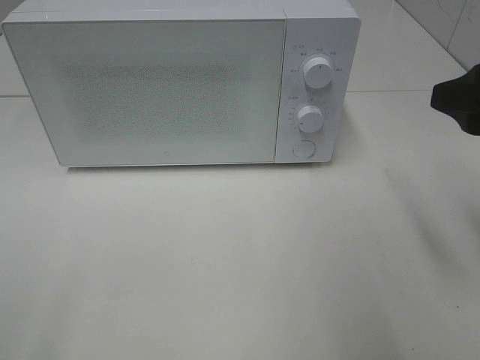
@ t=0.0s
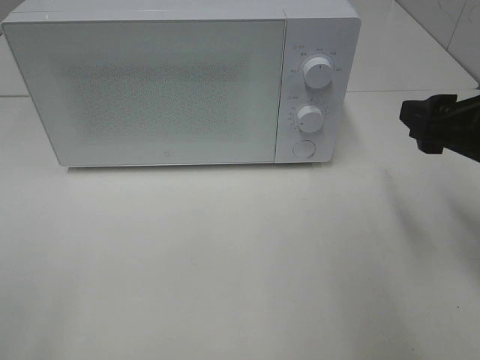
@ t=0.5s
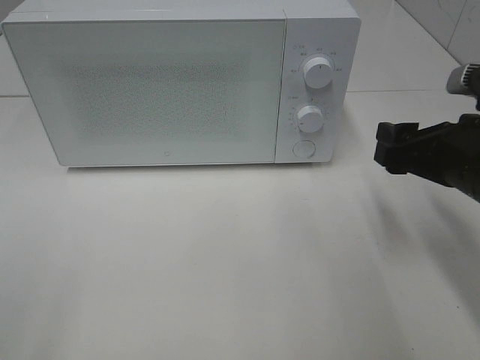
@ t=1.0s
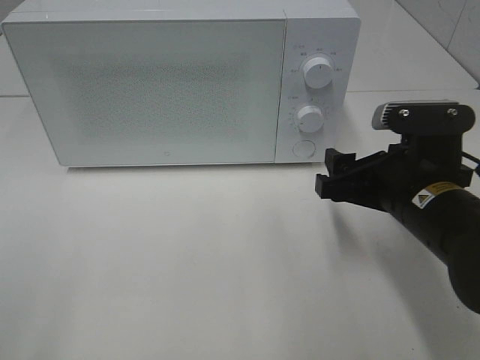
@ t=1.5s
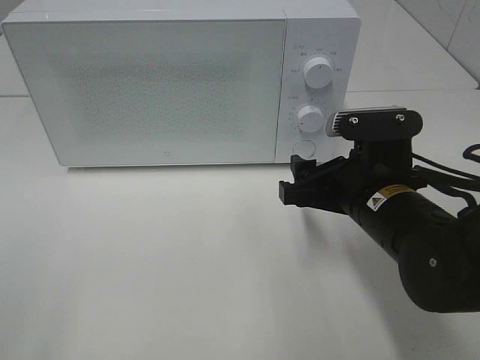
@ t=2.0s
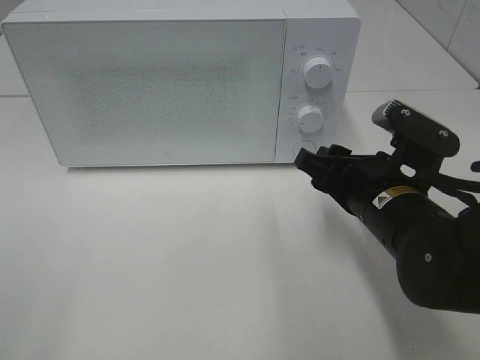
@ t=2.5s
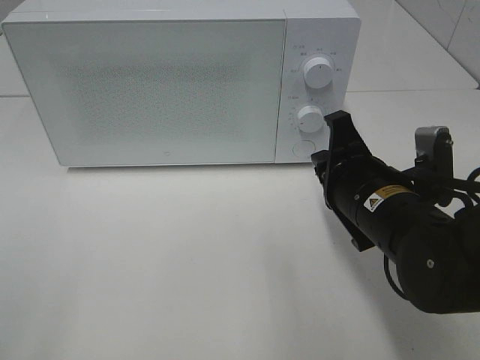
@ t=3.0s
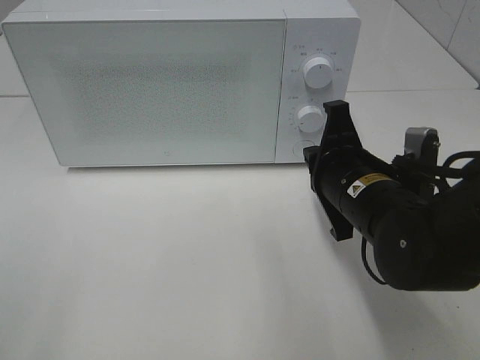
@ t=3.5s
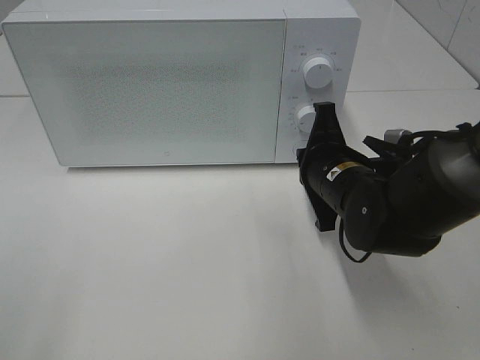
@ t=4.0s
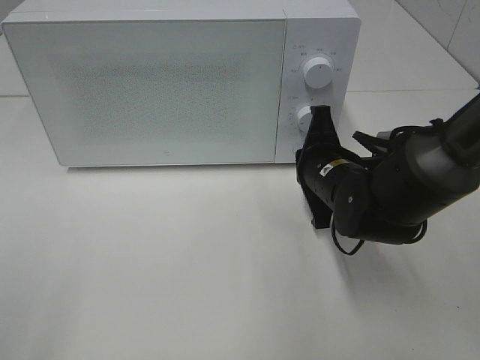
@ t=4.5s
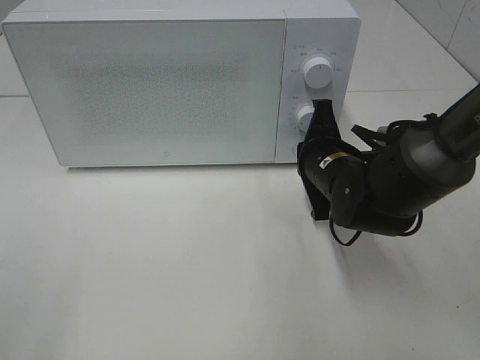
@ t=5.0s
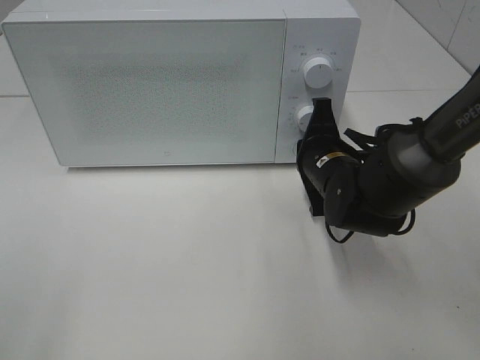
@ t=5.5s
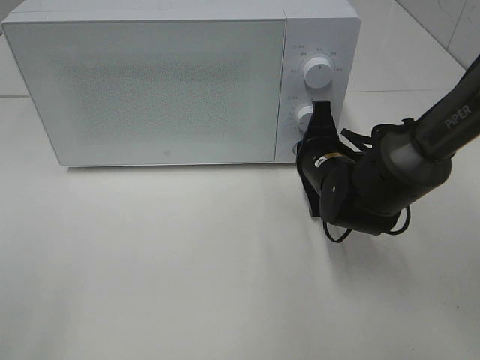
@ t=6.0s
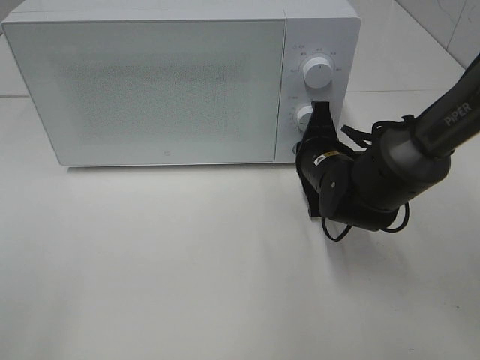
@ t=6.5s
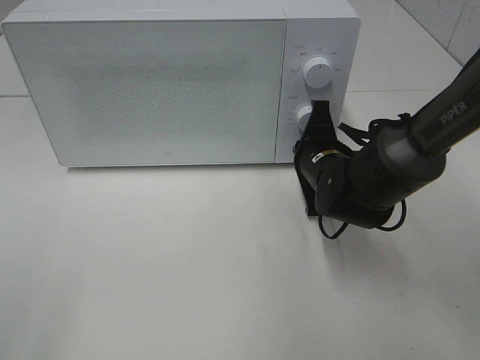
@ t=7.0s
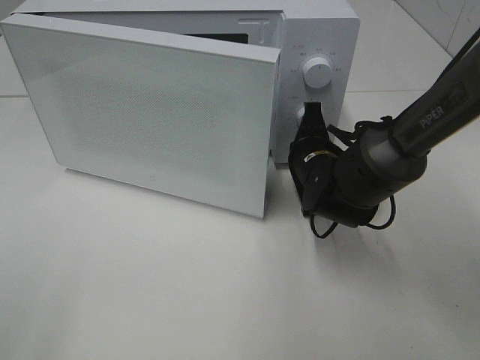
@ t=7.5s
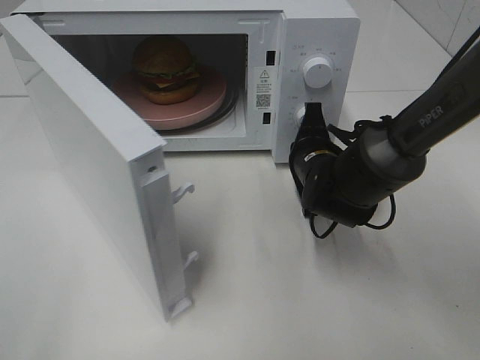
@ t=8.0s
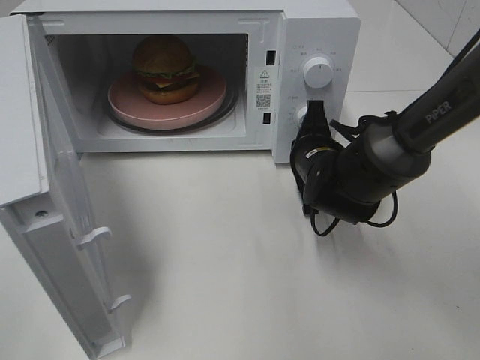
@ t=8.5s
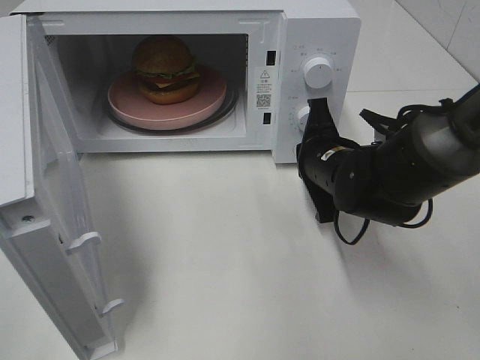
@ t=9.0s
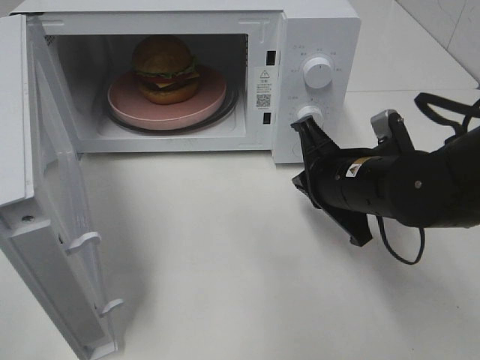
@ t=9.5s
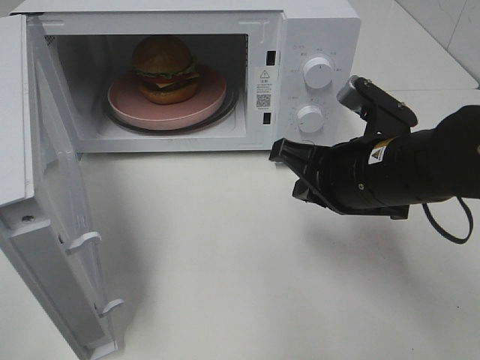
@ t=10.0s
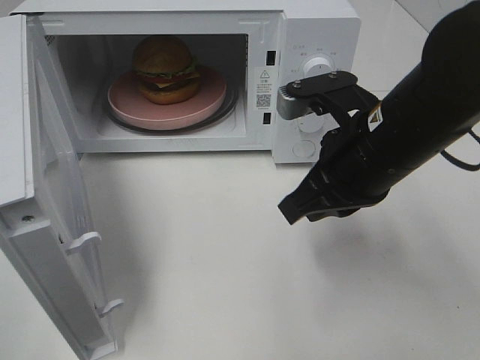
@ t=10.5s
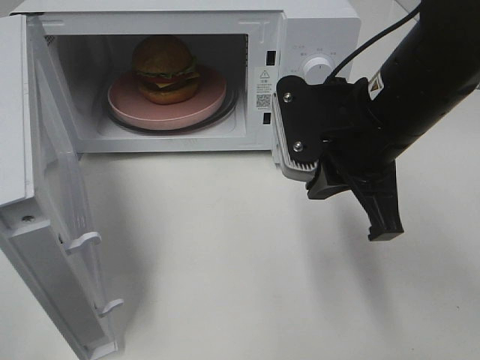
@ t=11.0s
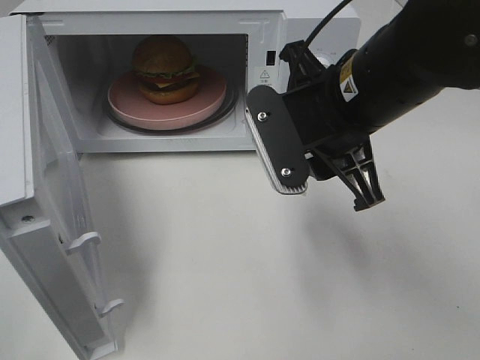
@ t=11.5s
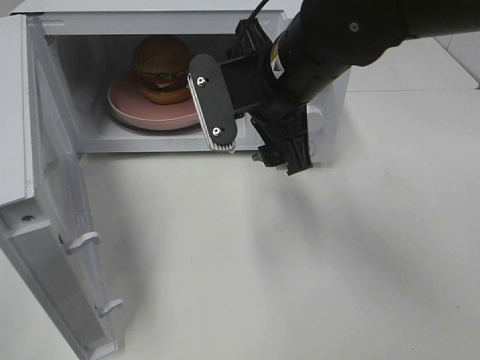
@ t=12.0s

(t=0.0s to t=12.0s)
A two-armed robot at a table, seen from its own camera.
Task of the whole recording: Heat the burger.
Step, t=0.0s - t=8.5s: Right hand: press the switch.
t=0.0s - t=2.0s: The right gripper travels downward and to the left by roughly 20 cm.
t=2.0s - t=4.0s: The right gripper goes roughly 5 cm forward, and closes its fingers.
t=4.0s - t=6.0s: The right gripper ends up about 5 cm from where it was.
t=8.0s - t=10.0s: The right gripper is displaced backward and upward by roughly 15 cm.
t=10.0s - t=12.0s: The right gripper shifts some 10 cm to the left, upward and forward, and opens its fingers.

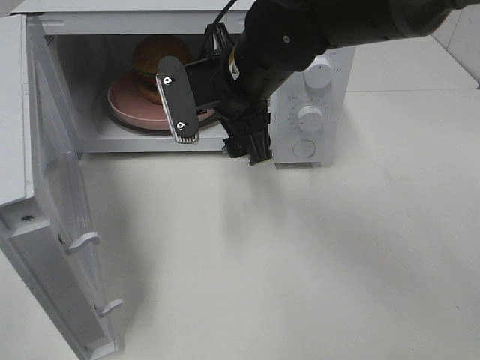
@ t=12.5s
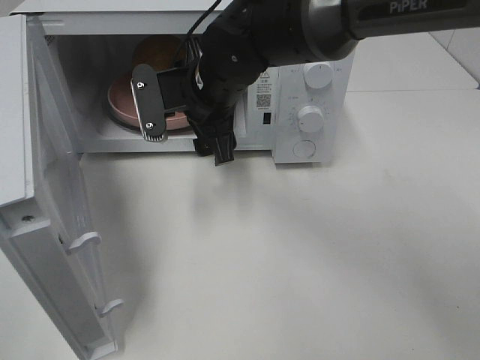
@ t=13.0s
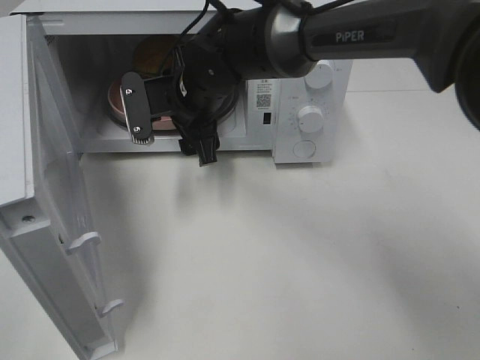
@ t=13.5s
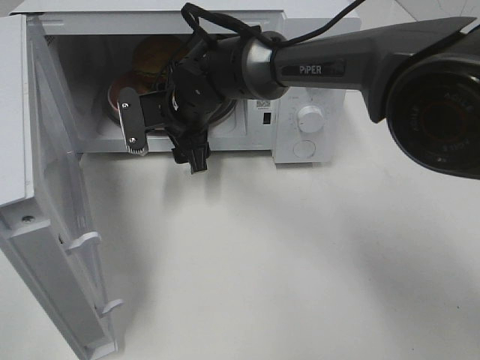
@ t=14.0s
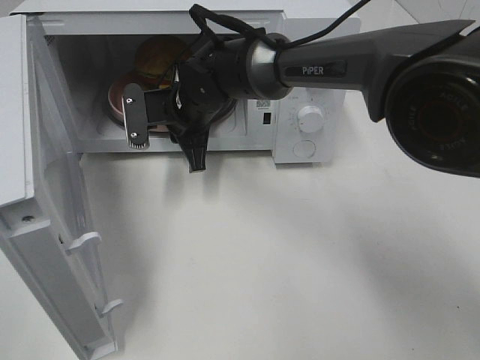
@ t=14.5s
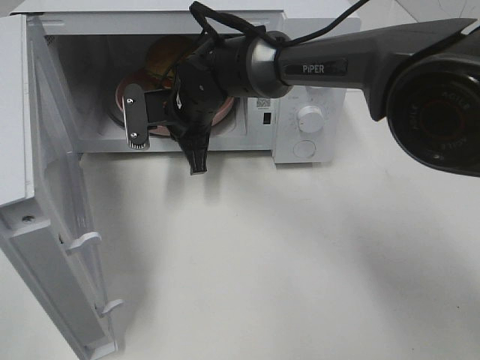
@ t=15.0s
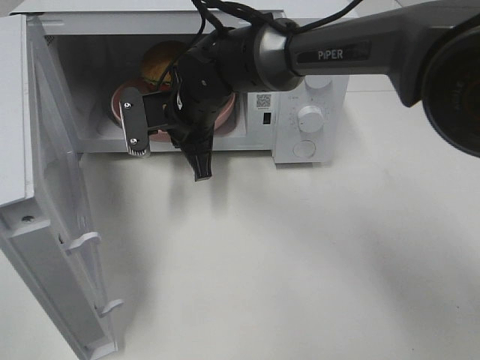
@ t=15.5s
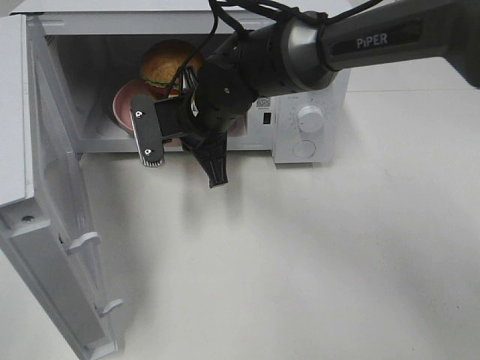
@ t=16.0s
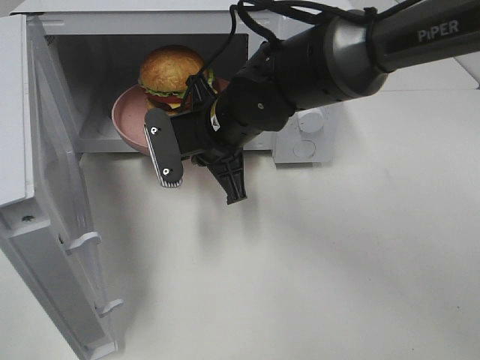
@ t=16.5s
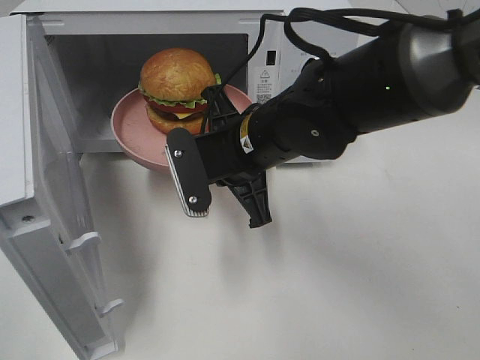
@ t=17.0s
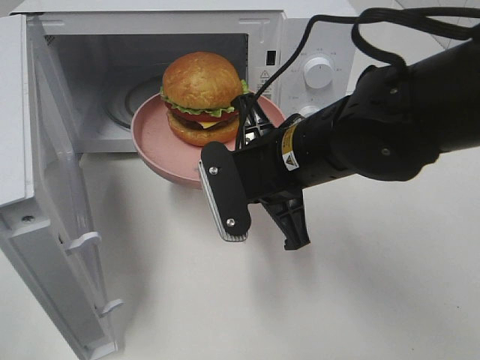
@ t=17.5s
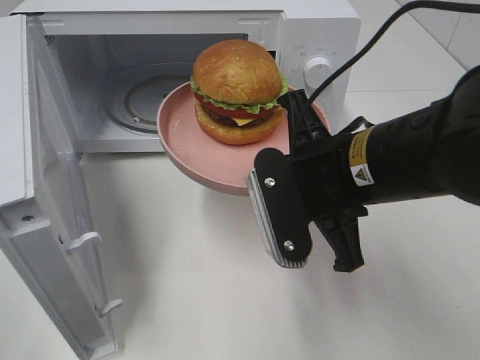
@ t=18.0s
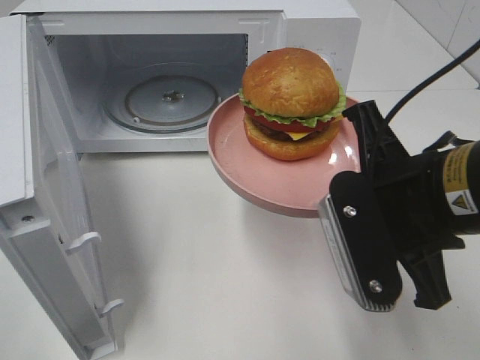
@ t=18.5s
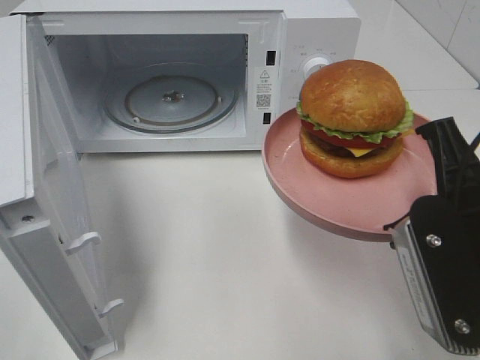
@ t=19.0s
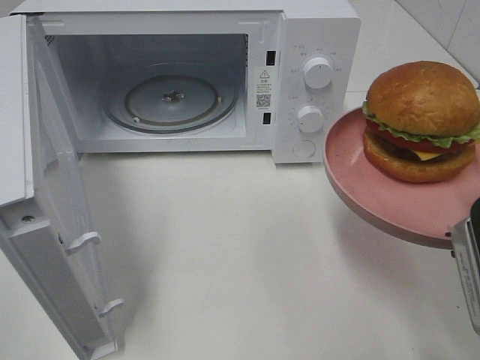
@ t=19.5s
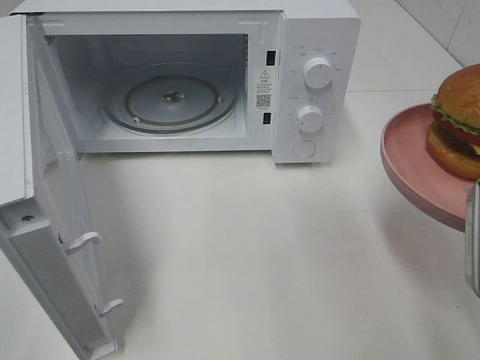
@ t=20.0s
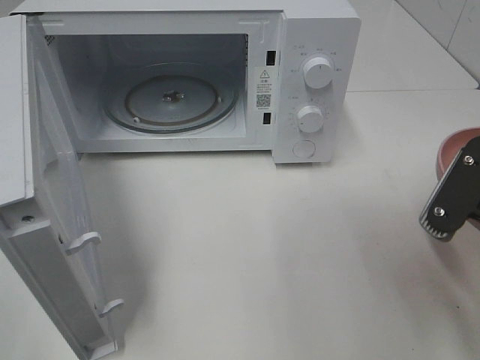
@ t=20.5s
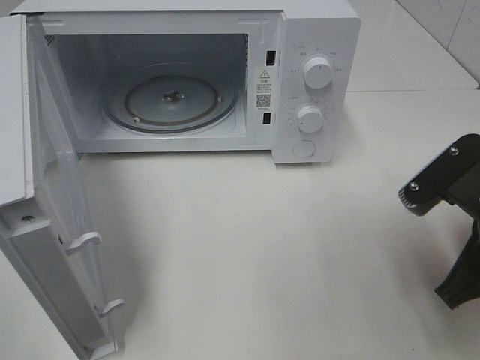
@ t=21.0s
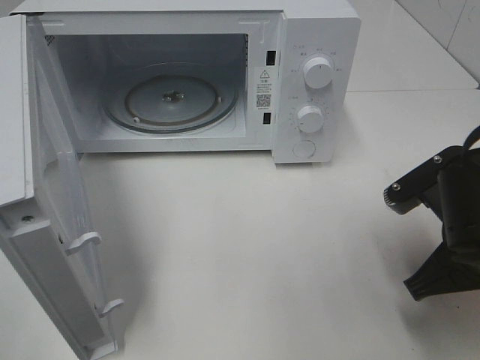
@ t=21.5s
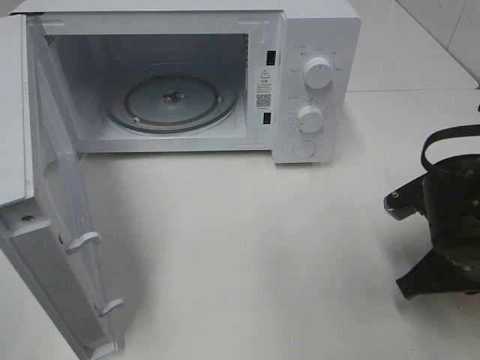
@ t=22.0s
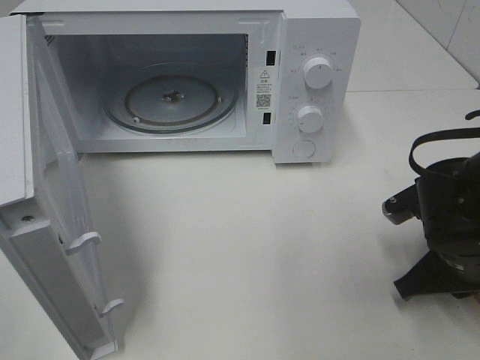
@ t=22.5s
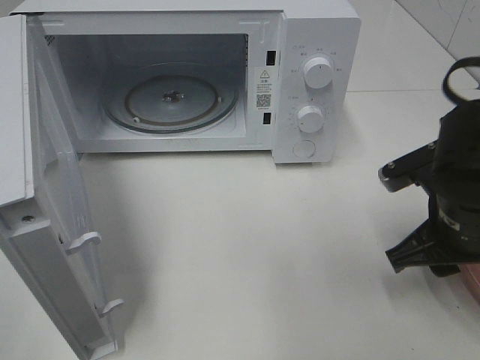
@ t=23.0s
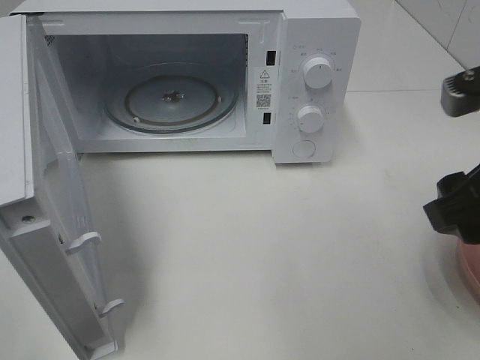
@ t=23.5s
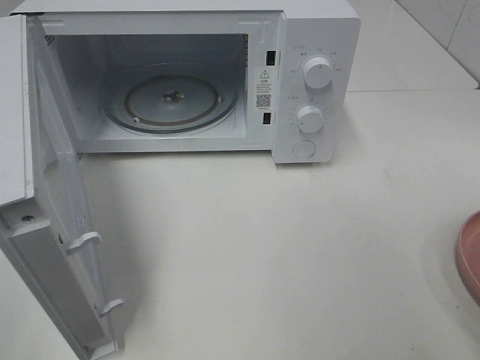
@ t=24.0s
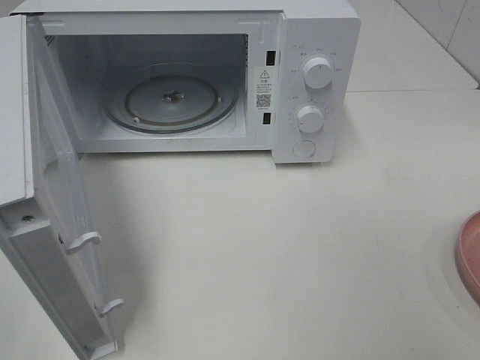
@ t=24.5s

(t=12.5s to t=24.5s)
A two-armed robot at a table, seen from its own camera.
Task of the whole recording: Heat the burger.
Step, t=12.5s - t=14.5s: Right hand: grab the plate with the hamburger.
Step, t=15.0s - t=22.5s: Right hand: place the plate on the table.
t=12.5s - t=14.5s: The right gripper shifts about 15 cm downward, forward and to the left, and closes its fingers.
t=14.5s - t=16.5s: The right gripper is displaced backward by roughly 10 cm.
t=16.5s - t=18.5s: The right gripper goes some 20 cm backward and to the right.
t=18.5s - t=20.5s: The right gripper heads to the right, covering about 10 cm.
t=20.5s - t=22.5s: The right gripper shifts roughly 15 cm downward and forward.
t=22.5s - t=24.5s: The right gripper goes roughly 30 cm upward and backward, and opens its fingers.

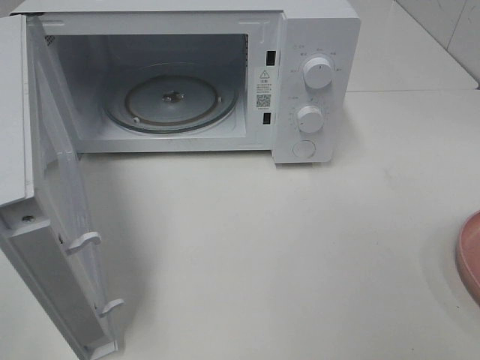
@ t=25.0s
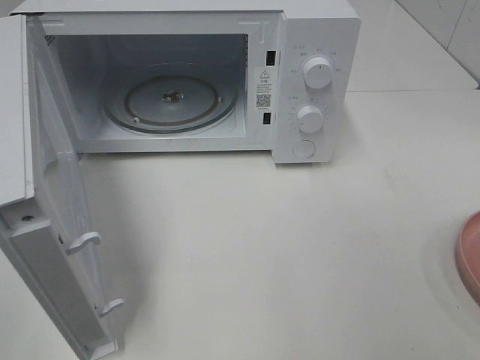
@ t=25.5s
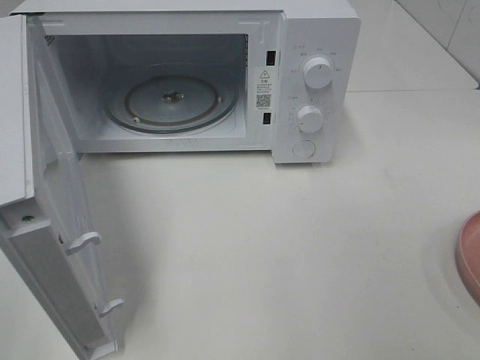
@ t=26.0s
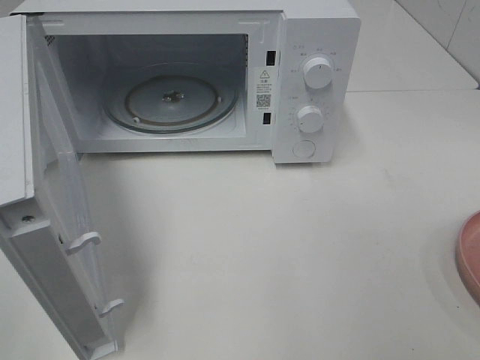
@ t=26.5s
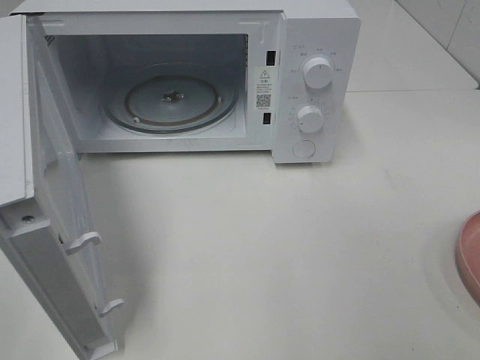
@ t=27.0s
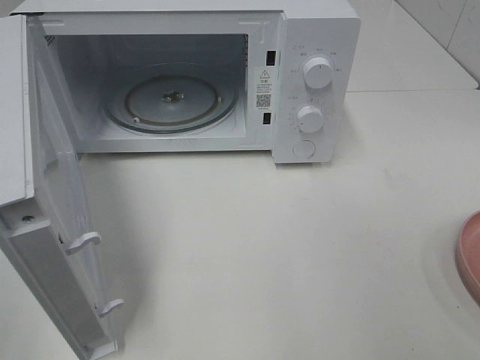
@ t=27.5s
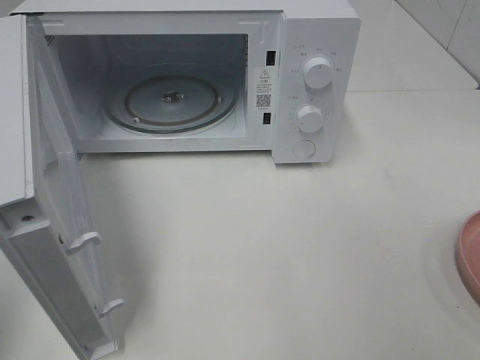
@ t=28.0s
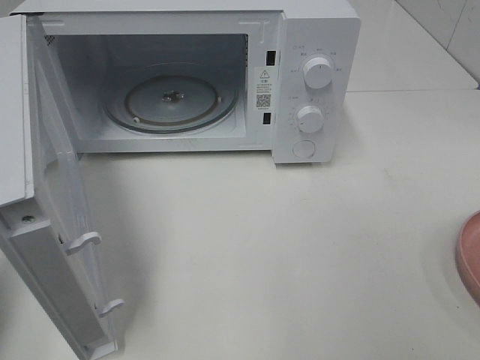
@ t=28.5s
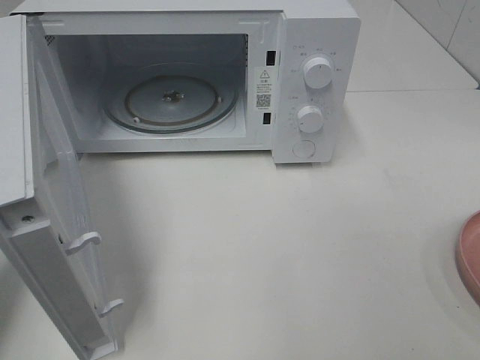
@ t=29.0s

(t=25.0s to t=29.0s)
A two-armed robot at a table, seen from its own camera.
Task of the whole recording: Heat the burger.
t=27.0s - t=29.0s: The left gripper shifts about 20 cm forward and downward, and closes up.
